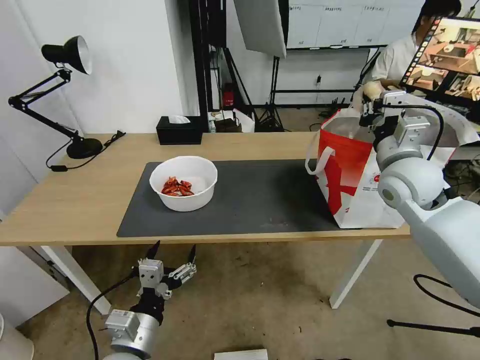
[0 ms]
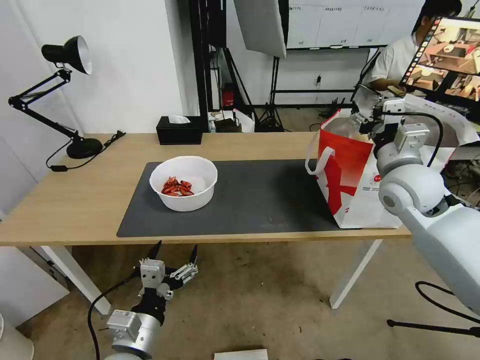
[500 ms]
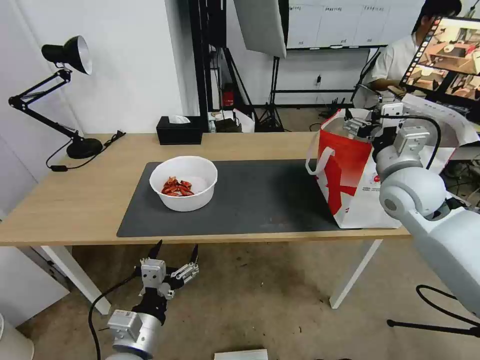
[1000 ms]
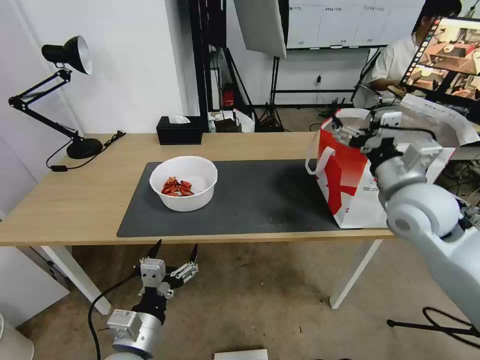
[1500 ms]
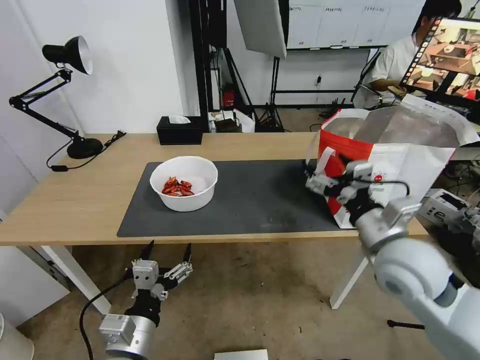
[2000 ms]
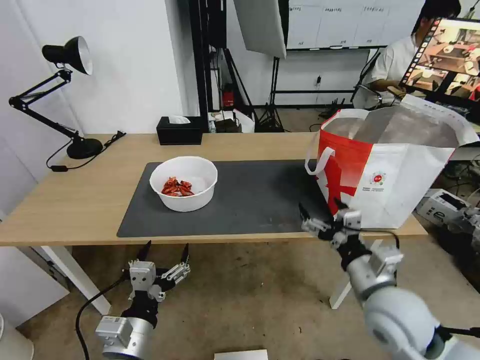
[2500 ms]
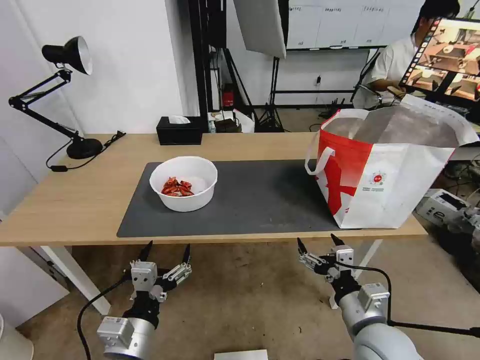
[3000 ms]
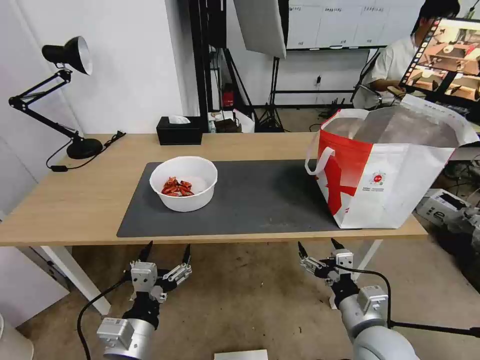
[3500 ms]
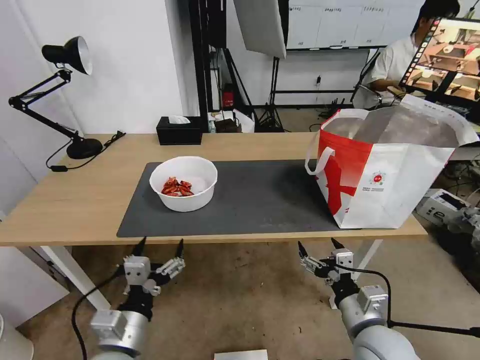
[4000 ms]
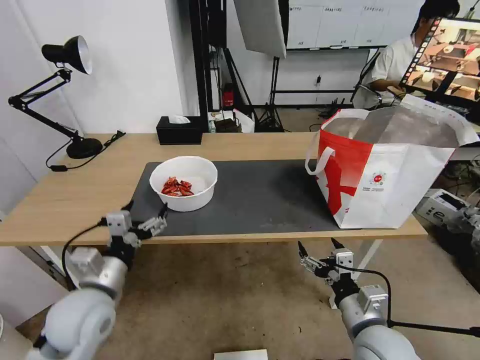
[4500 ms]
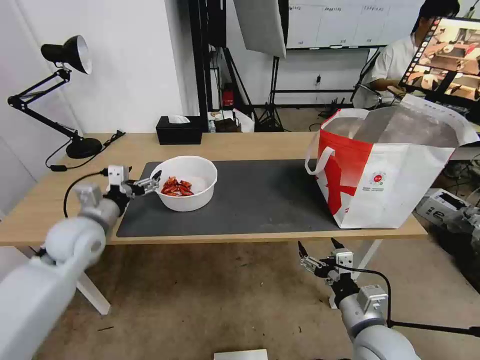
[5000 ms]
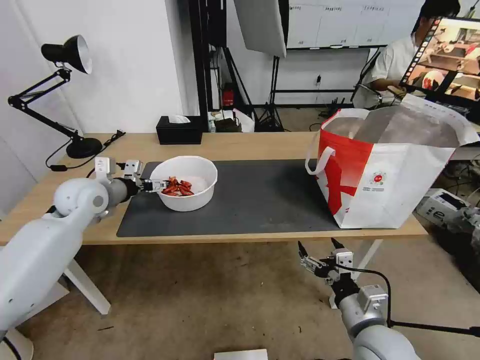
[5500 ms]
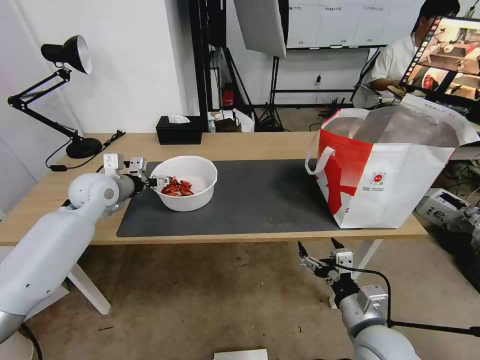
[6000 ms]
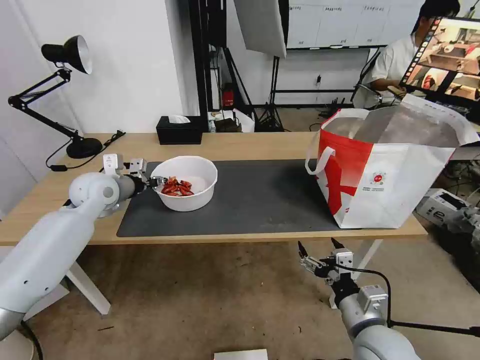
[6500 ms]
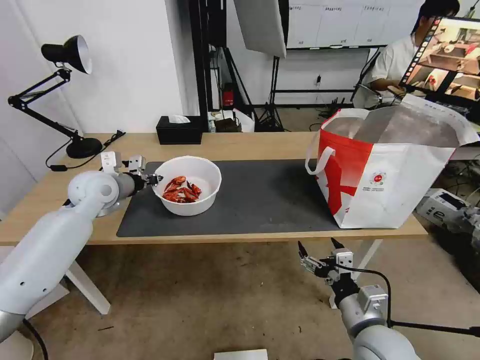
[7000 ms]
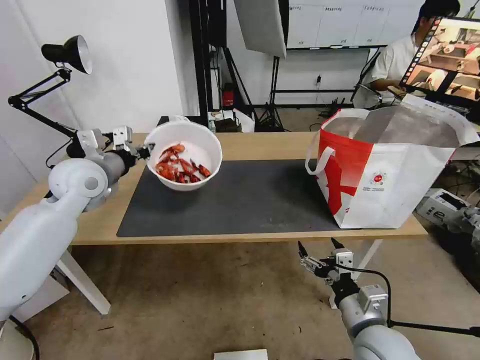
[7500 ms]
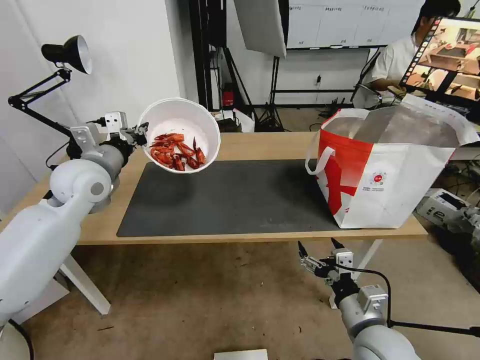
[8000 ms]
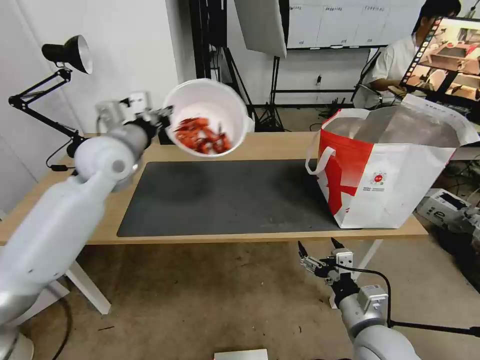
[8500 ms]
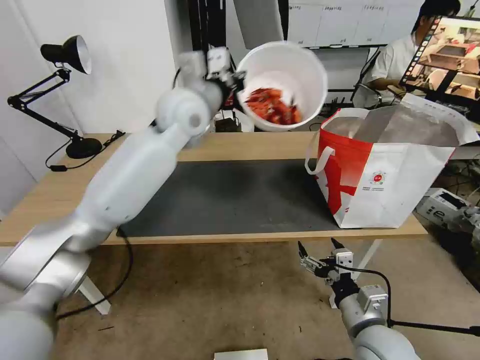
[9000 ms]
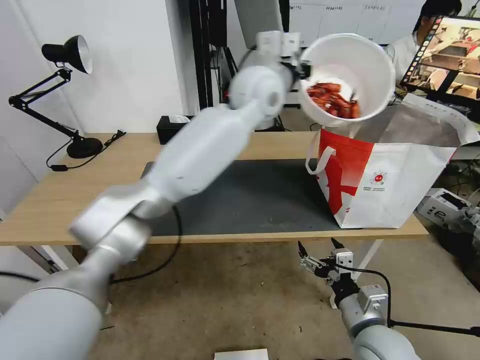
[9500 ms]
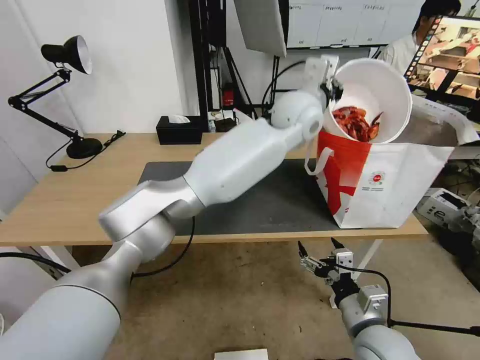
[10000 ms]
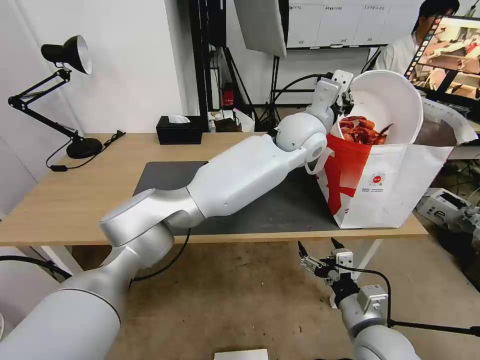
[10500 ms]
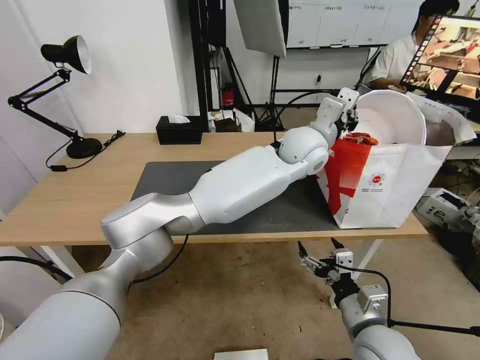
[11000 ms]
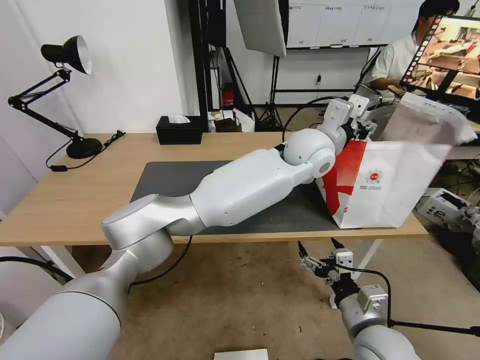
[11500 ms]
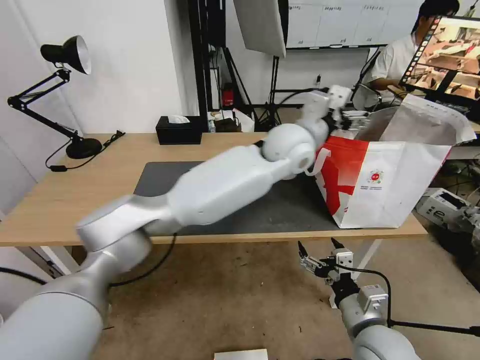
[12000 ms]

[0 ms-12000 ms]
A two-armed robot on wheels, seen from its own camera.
Task of the whole recording: Pick up the trash from the table and place it into the takeout bag.
0 ms to 2000 ms: The right gripper goes about 15 cm backward and downward, and opens its fingers.
2000 ms to 4000 ms: The right gripper heads downward and backward, covering roughly 20 cm.
4000 ms to 6000 ms: The left gripper heads forward, covering about 35 cm.
6000 ms to 8000 ms: The left gripper heads upward, covering about 5 cm, and closes.
8000 ms to 10000 ms: The left gripper shifts about 40 cm to the right.
10000 ms to 12000 ms: The left gripper ends up some 5 cm from where it was, and opens.

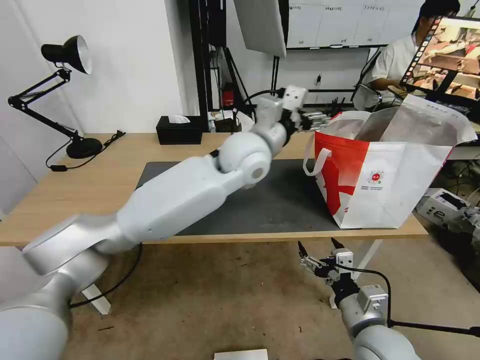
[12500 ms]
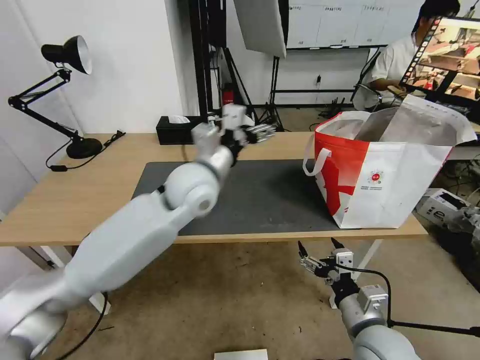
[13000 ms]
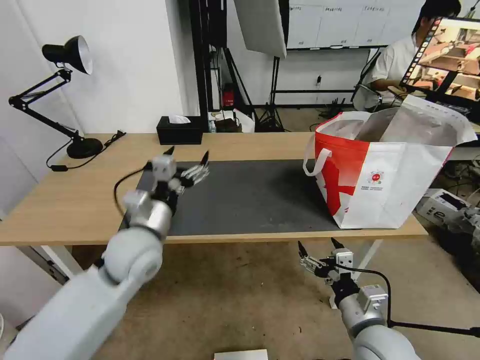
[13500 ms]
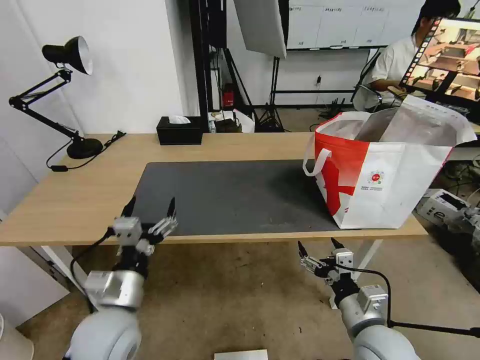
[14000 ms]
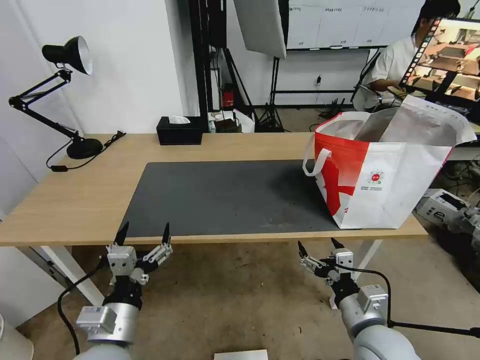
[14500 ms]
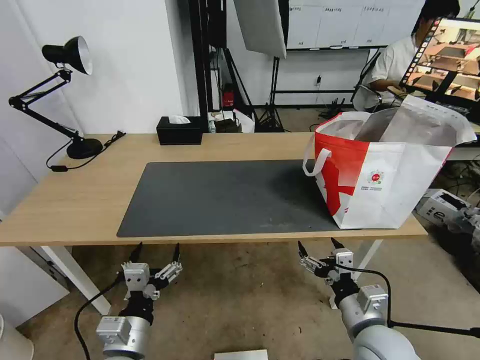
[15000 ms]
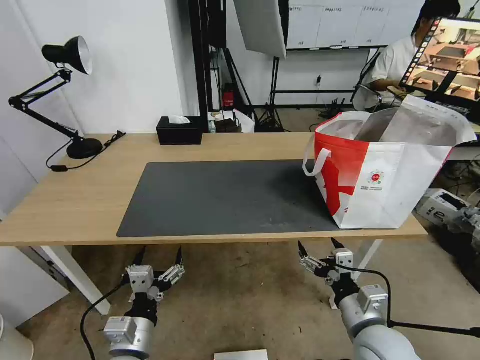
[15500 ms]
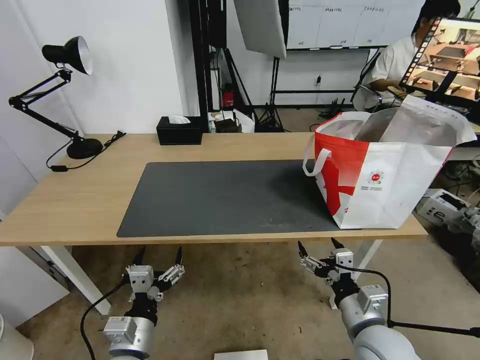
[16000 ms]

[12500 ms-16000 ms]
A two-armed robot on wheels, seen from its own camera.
Task of the whole recording: Pick up the trash from the table and place it into the takeout bag.
12500 ms to 14500 ms: The left gripper travels backward, to the left and downward by about 40 cm.
14500 ms to 16000 ms: The left gripper is displaced downward by some 5 cm.
